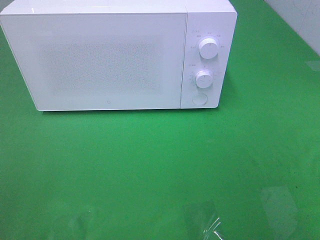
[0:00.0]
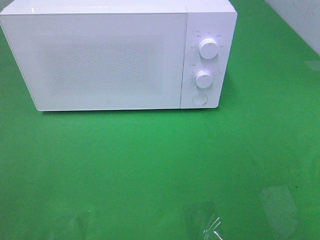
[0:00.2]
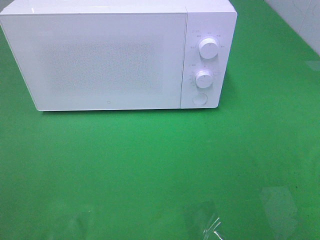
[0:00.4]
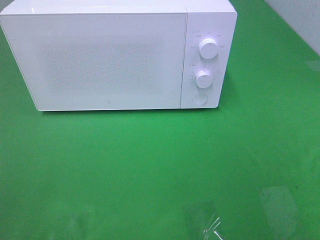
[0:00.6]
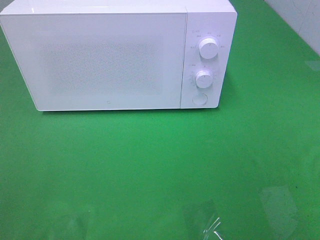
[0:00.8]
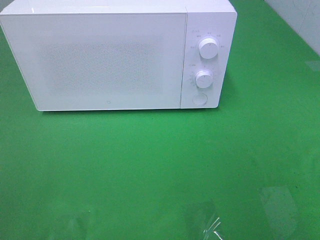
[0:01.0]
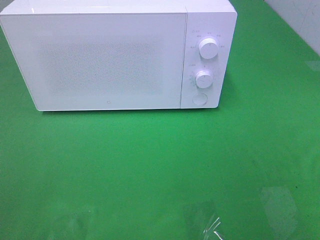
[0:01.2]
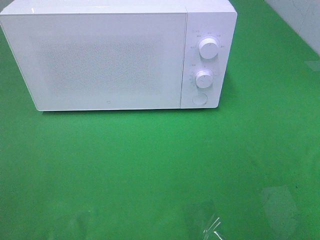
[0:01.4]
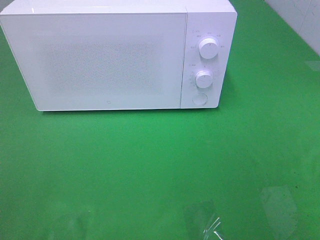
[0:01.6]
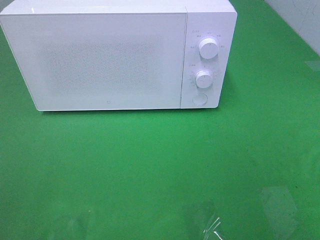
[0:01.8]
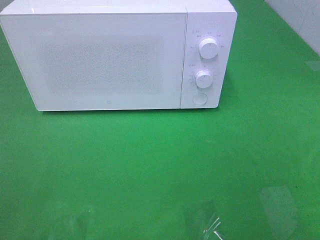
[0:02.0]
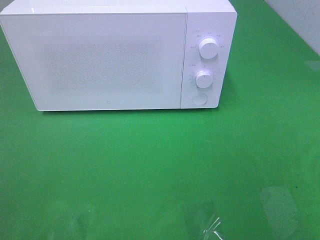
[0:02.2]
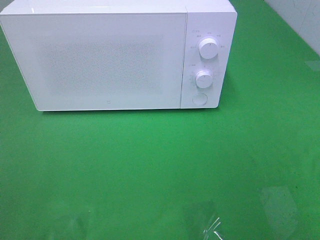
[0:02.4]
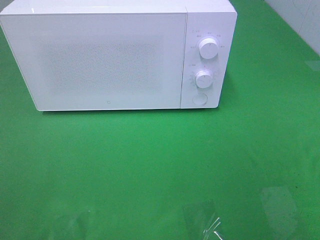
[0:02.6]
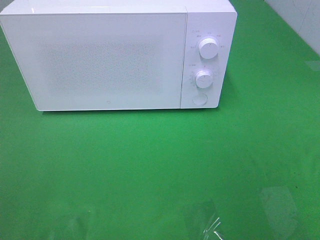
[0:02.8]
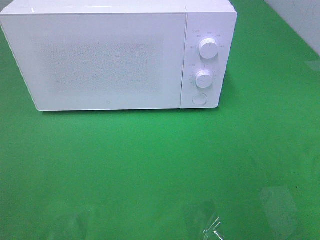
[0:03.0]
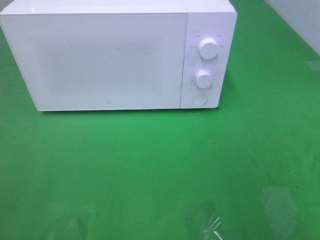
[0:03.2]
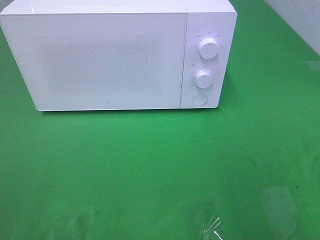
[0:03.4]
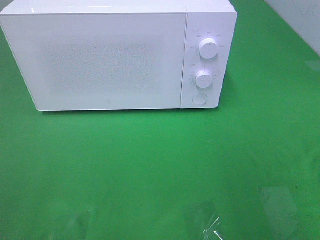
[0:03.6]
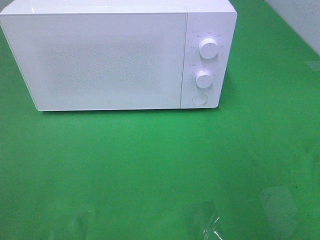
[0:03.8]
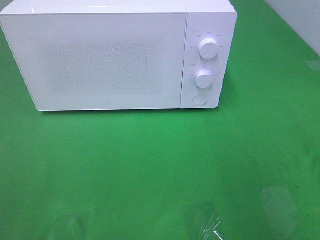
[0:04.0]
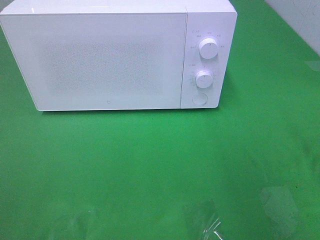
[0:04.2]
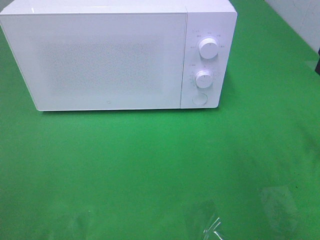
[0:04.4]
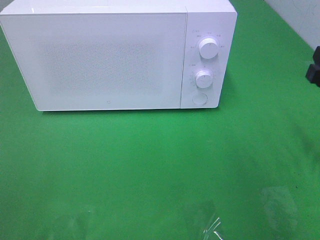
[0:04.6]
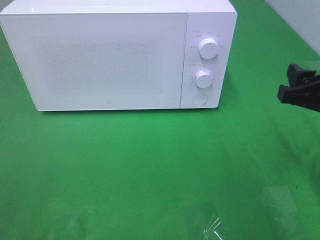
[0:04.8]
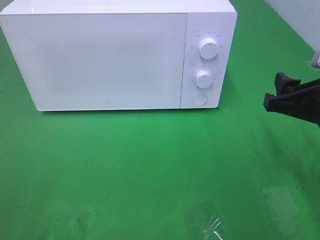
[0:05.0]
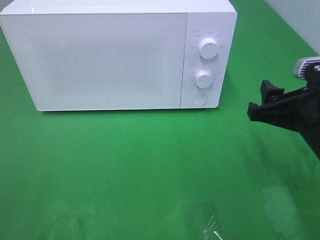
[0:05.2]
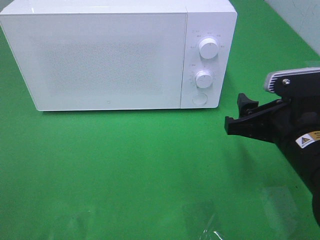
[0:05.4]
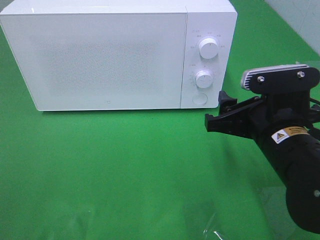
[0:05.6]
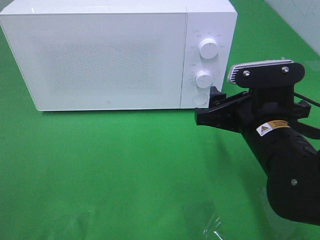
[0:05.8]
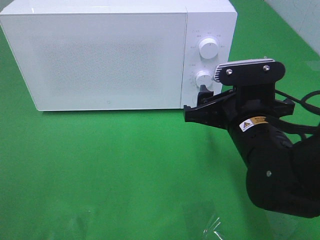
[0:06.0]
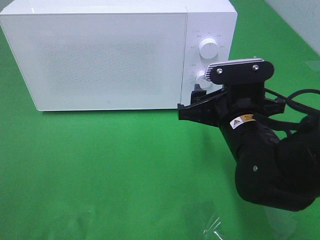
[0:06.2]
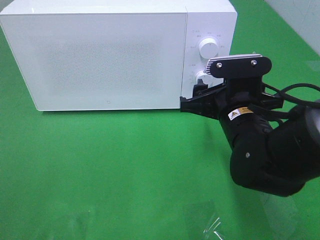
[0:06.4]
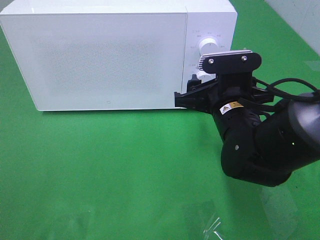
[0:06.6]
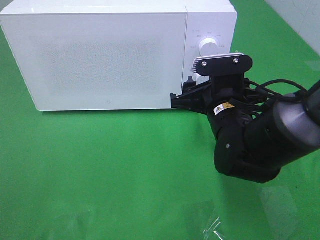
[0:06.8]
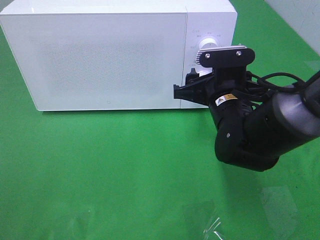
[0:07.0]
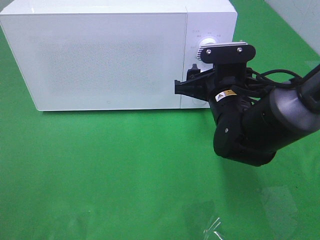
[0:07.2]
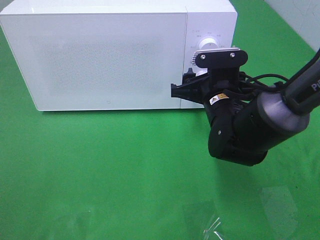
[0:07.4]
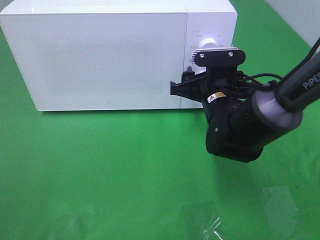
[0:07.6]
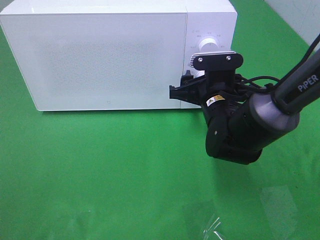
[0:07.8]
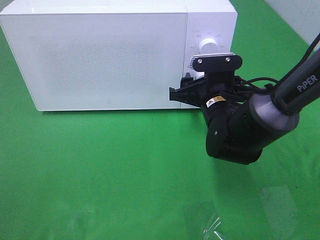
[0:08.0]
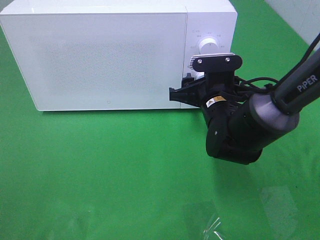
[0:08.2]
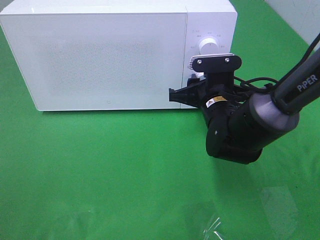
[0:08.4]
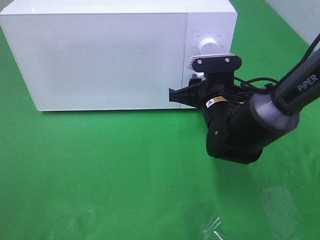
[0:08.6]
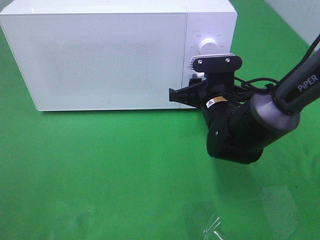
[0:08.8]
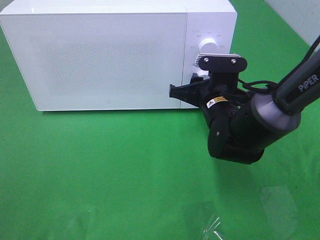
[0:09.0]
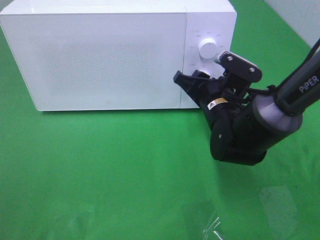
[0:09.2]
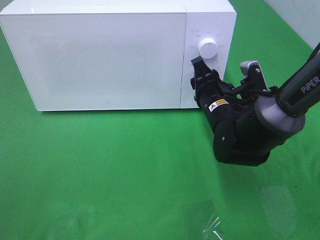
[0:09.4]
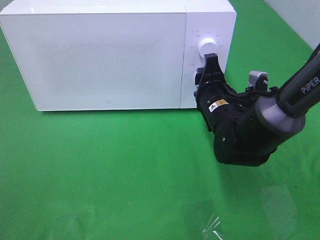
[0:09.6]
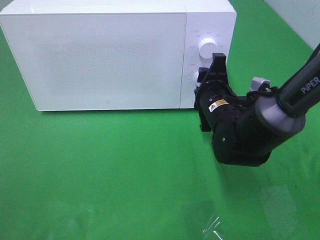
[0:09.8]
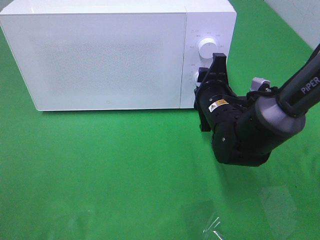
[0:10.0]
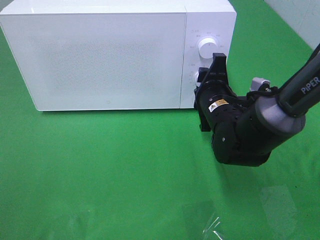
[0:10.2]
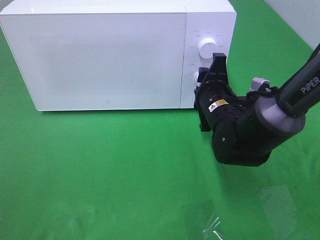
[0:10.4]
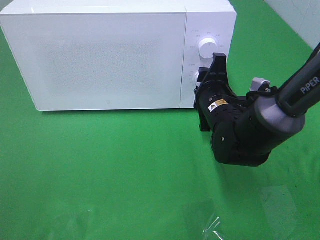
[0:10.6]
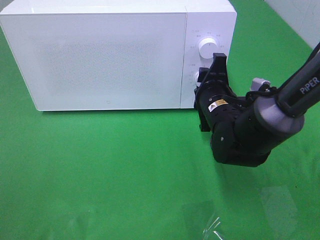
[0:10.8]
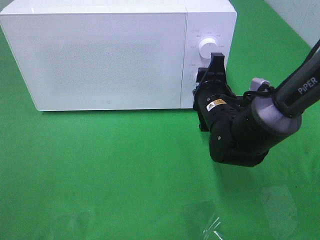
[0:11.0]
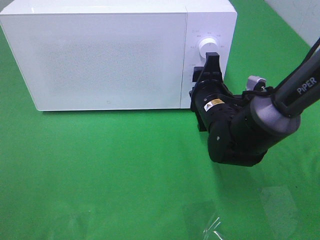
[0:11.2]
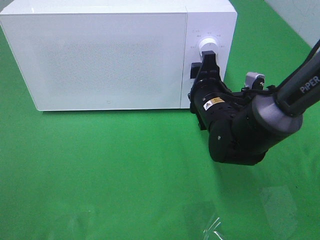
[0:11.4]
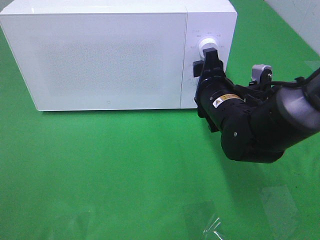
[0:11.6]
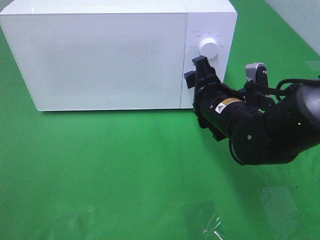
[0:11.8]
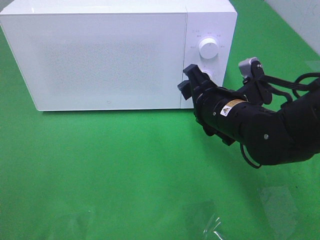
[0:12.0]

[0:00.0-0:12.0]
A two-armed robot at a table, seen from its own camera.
Task of the whole recording: Heat the burger.
Step, 0:00.0 to 0:11.6: Right hand: twist timer button.
0:04.4 to 0:06.0: The right gripper heads to the left and downward, covering approximately 20 cm.
0:06.0 to 0:07.6: The right gripper goes about 10 cm forward.
0:07.6 to 0:09.0: The grippers make only small movements.
0:10.4 to 0:12.0: The right gripper travels backward by some 5 cm.

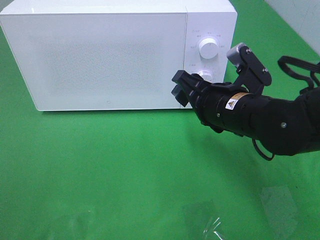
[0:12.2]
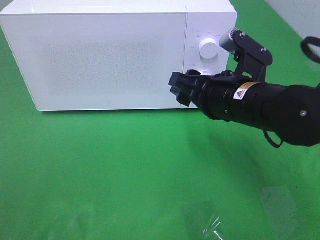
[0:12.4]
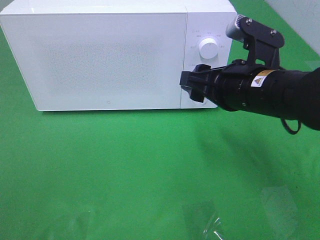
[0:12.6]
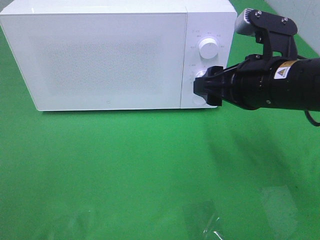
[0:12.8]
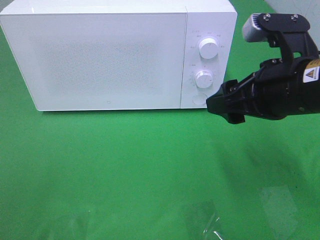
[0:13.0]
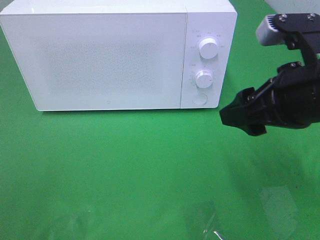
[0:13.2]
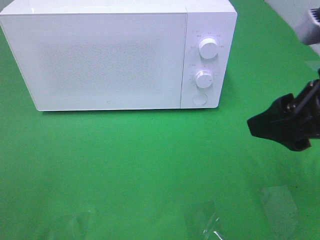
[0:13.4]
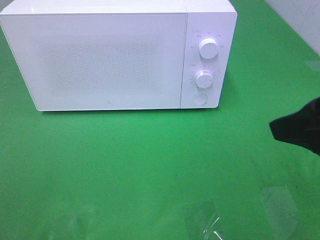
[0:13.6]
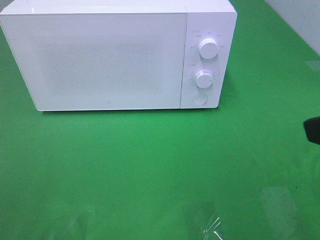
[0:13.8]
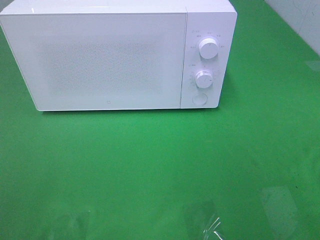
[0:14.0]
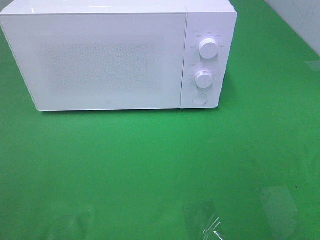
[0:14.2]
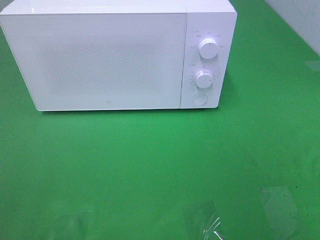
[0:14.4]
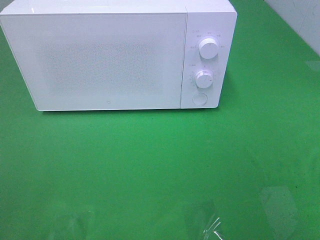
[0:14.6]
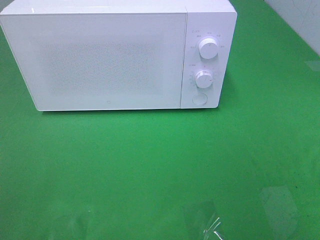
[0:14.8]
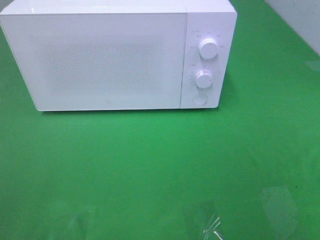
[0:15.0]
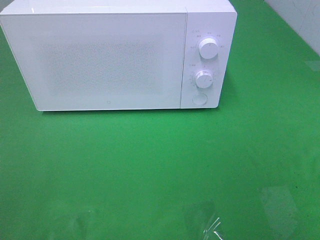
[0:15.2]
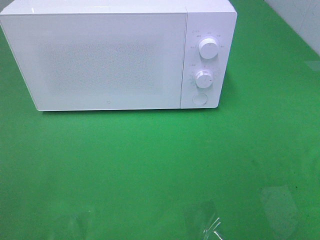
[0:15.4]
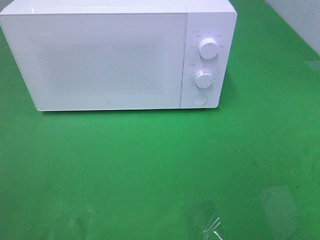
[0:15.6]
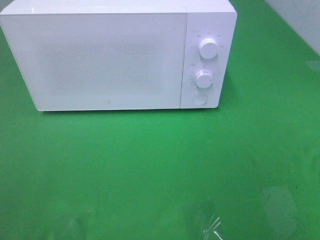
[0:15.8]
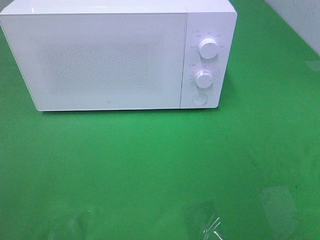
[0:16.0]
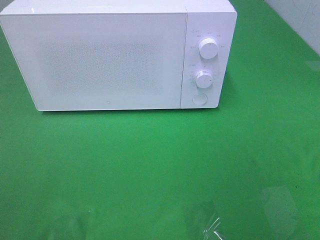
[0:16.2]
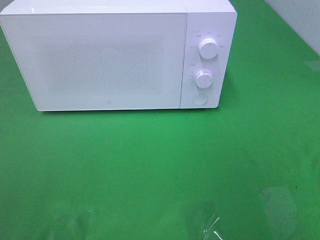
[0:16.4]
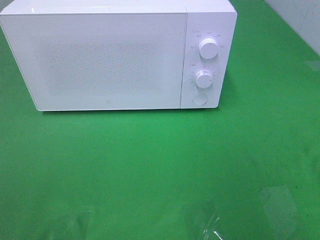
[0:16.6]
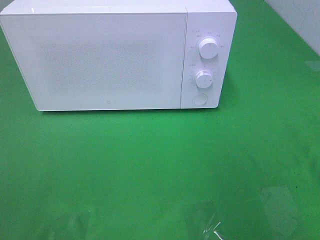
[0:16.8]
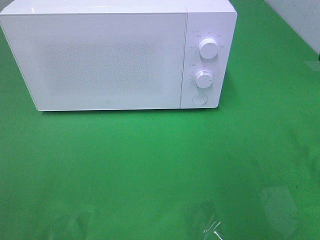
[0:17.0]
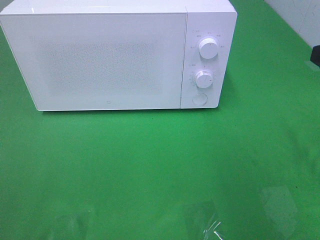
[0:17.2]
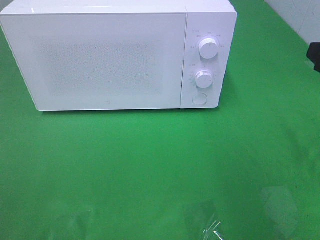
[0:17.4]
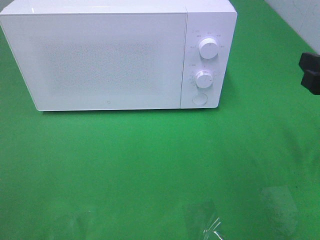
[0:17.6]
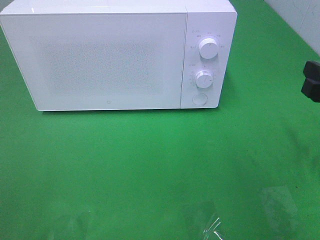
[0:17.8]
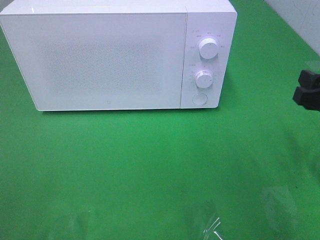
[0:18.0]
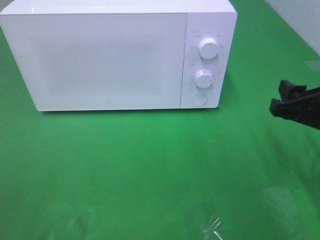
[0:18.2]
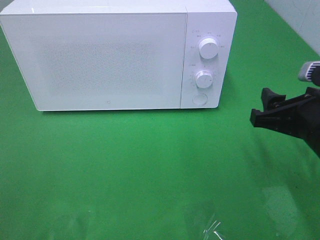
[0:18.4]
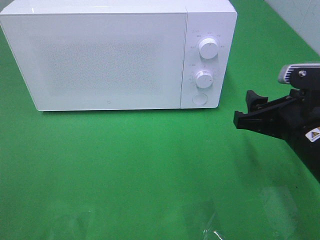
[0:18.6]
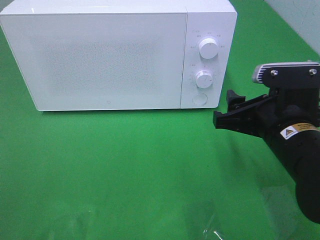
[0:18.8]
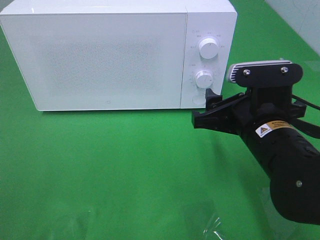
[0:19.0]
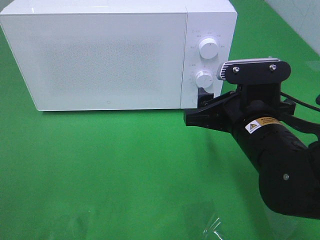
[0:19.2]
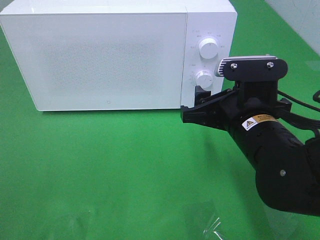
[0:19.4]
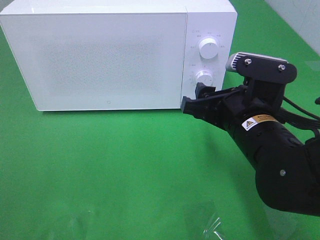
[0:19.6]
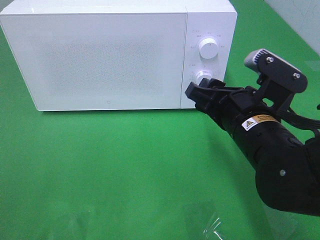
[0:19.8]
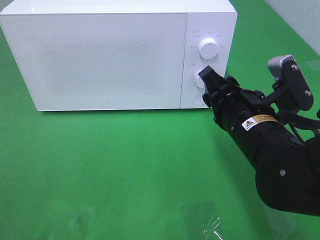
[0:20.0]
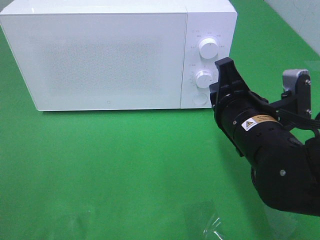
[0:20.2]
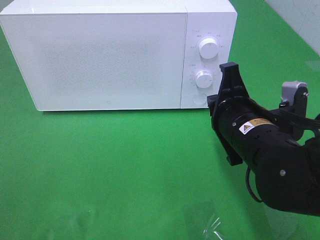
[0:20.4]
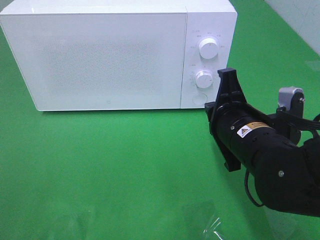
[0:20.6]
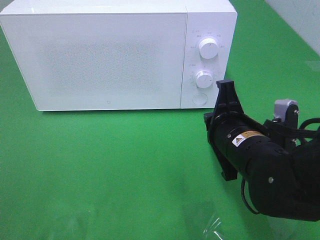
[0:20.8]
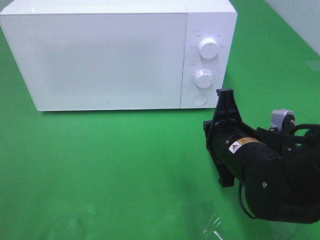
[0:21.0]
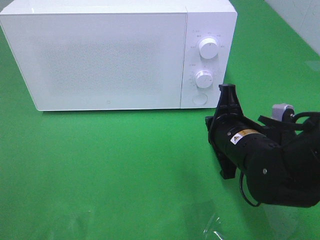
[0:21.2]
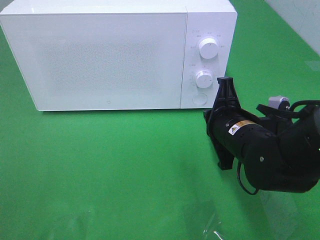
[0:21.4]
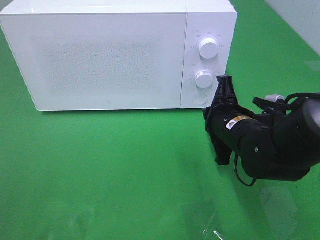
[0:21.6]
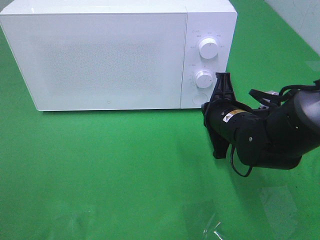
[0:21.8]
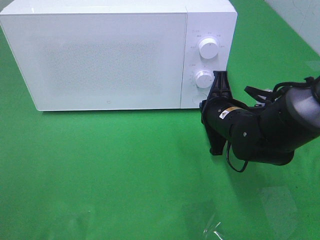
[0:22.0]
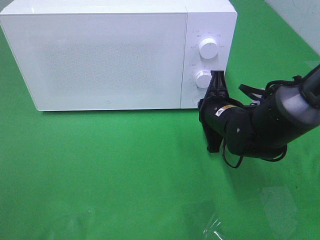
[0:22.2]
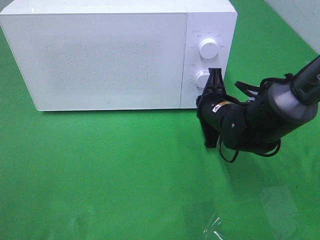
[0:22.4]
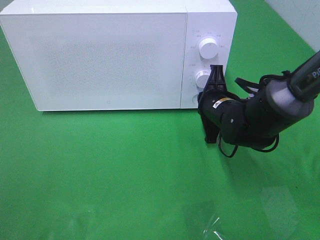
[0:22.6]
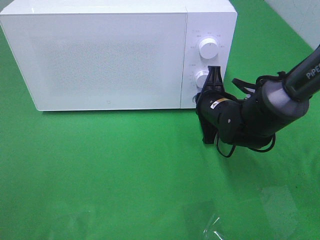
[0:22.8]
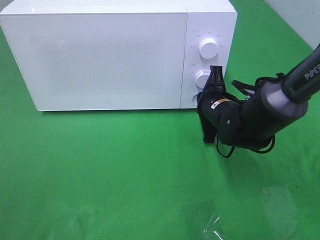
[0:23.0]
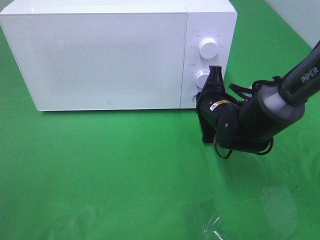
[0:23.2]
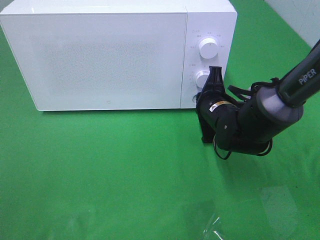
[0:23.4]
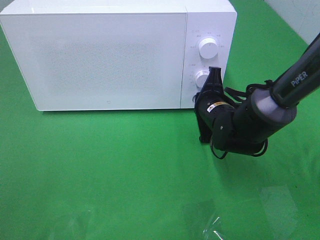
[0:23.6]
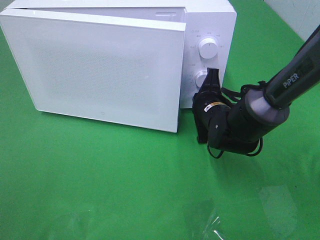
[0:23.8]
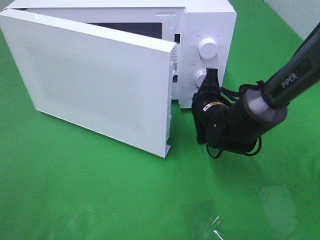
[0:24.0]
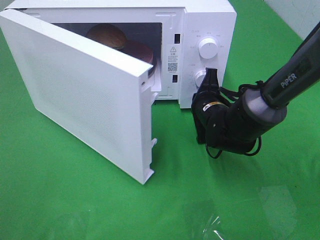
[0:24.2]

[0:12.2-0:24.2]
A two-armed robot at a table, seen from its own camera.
Task of the whole recording: Heat the burger.
0:12.2 to 0:13.8: The right gripper is displaced backward, upward and to the right by roughly 25 cm.
0:16.6 to 0:18.2: The right gripper goes roughly 15 cm downward and forward.
0:18.2 to 0:19.8: The right gripper shifts roughly 10 cm to the left.
0:19.8 to 0:21.2: The right gripper closes up.
0:21.2 to 0:22.6: The right gripper shifts about 10 cm forward.
